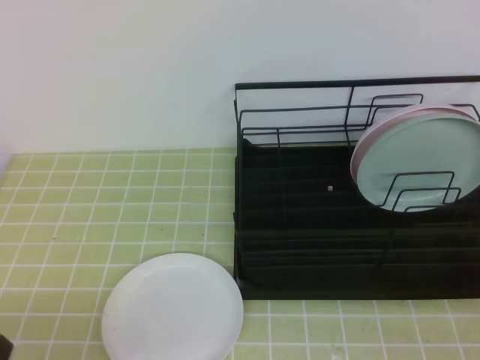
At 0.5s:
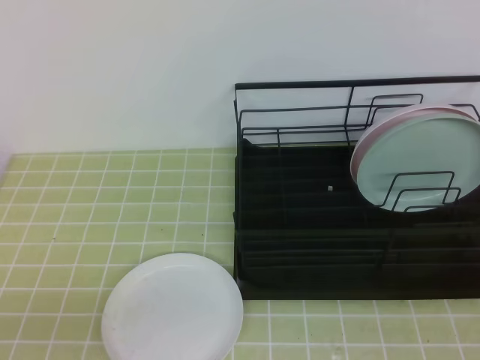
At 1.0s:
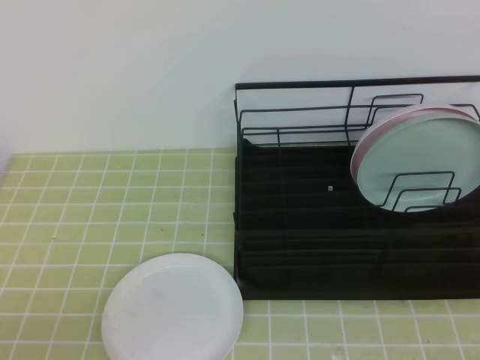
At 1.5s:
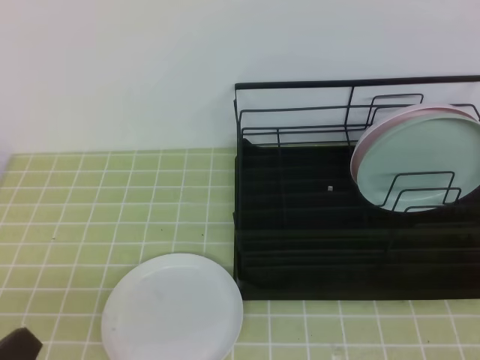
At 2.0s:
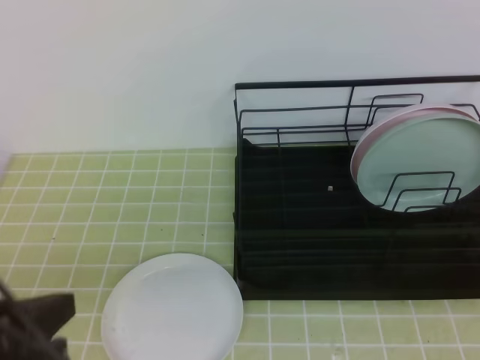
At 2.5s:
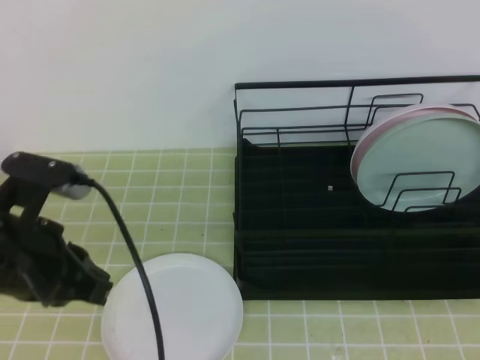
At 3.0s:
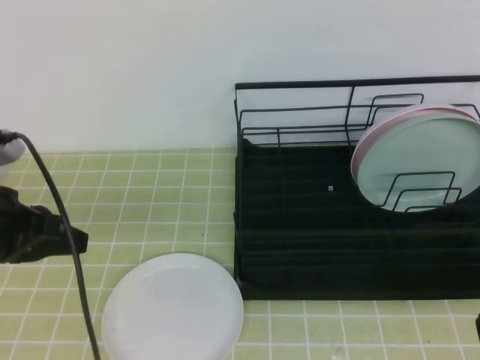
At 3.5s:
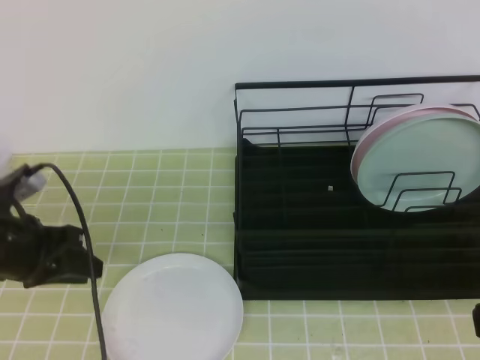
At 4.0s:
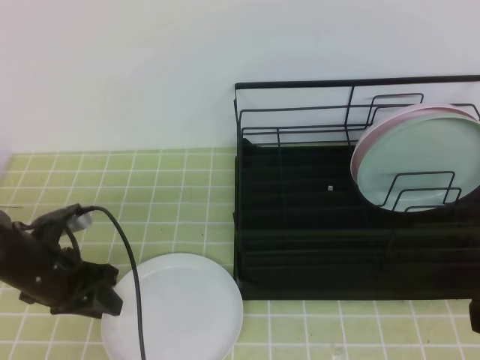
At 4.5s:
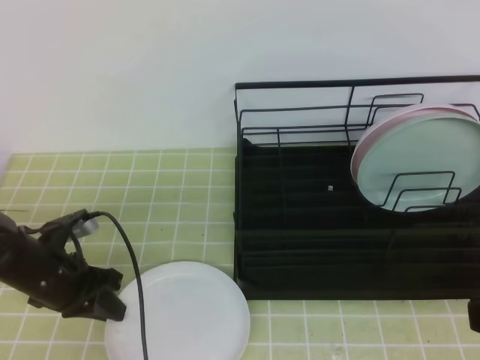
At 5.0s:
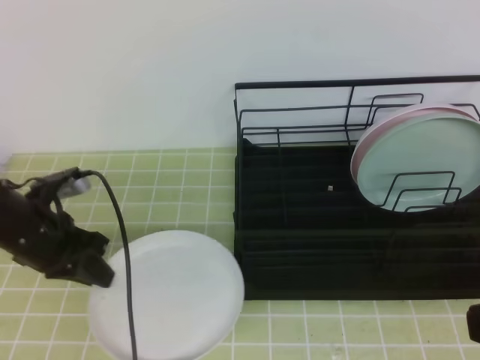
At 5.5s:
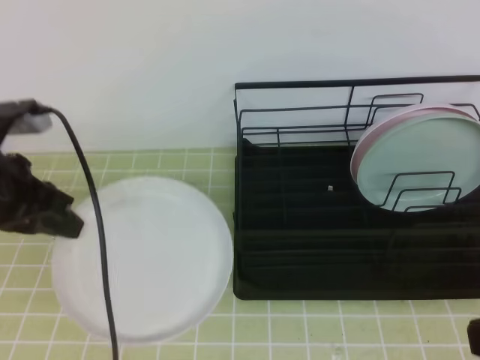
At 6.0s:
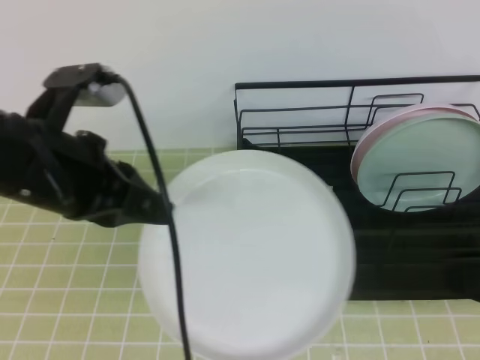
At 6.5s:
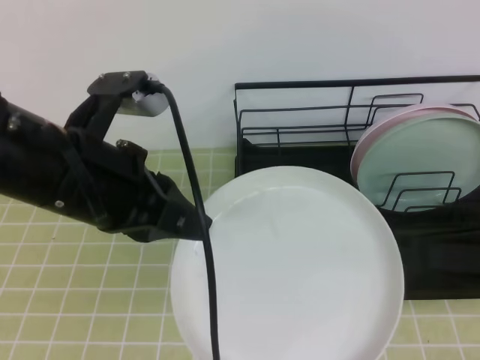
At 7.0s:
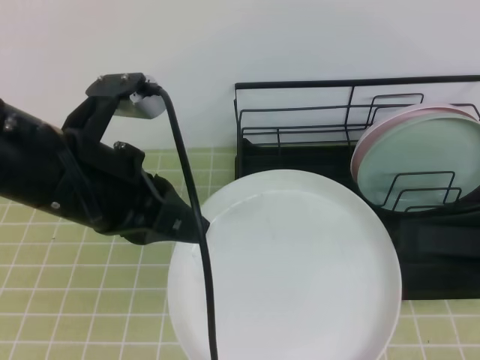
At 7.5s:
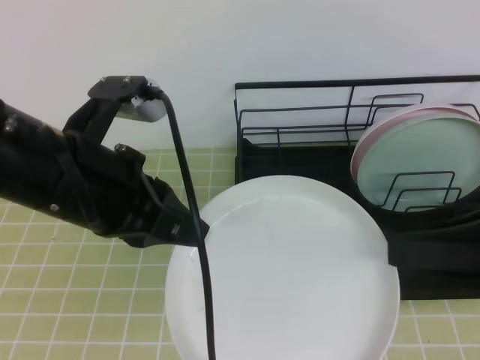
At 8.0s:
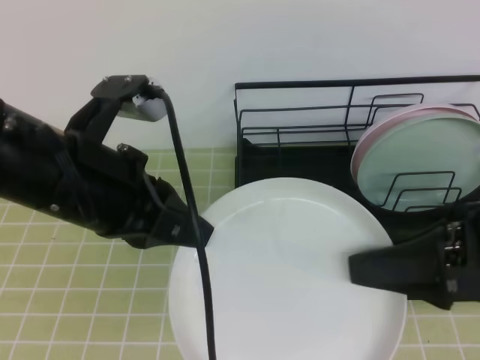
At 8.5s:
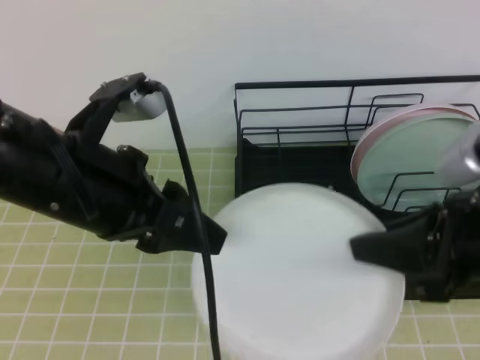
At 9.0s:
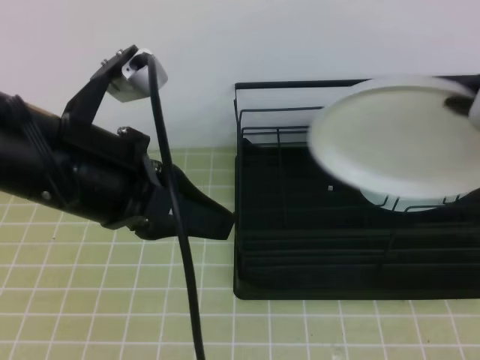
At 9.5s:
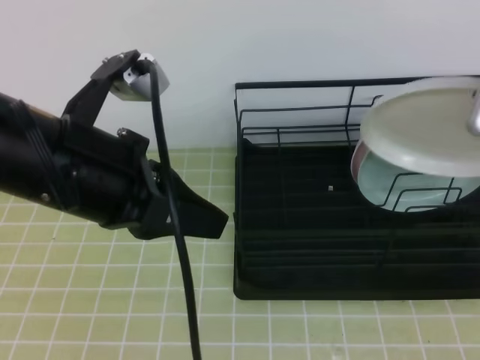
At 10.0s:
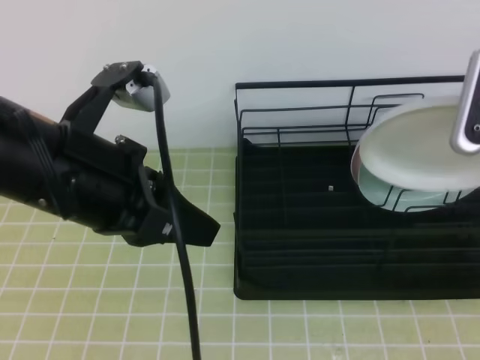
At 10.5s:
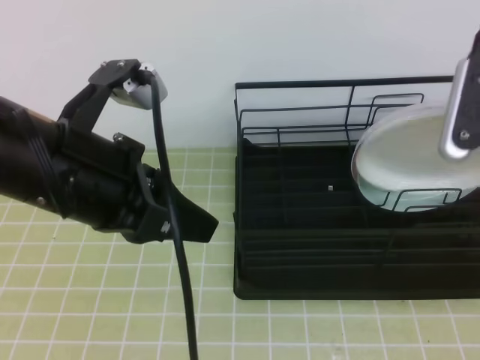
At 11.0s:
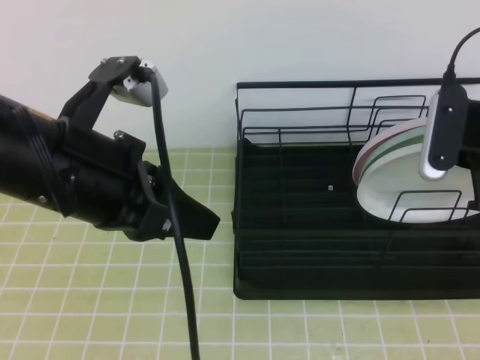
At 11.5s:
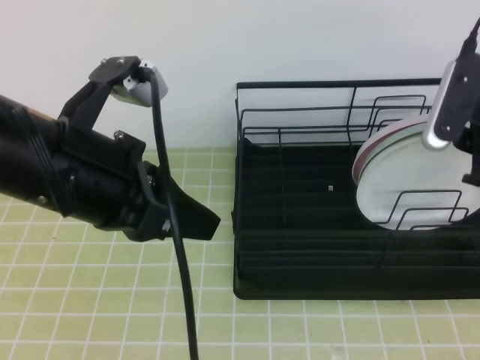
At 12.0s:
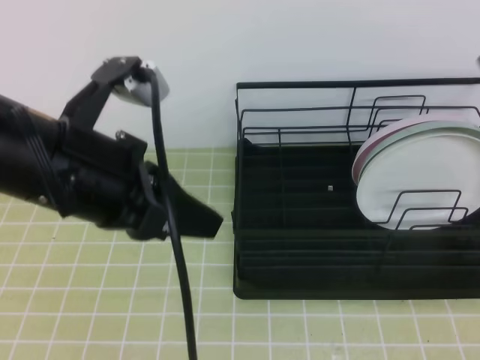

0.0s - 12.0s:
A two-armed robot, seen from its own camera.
0.0s - 2.0s: The left gripper is displaced upward and forward by roughly 10 cm; the right gripper moves upward and to the left, some 15 cm.
2.0s - 4.0s: The left gripper shifts some 25 cm forward and downward, and opens its fingers.
4.0s - 6.0s: The left gripper moves upward and to the right, about 20 cm, and closes up, while the right gripper opens up.
6.0s - 8.0s: The right gripper heads forward, covering some 5 cm.
8.0s - 10.0s: The left gripper opens, then closes once more. Meanwhile the right gripper goes roughly 10 cm forward, and closes its fingers.
10.0s - 12.0s: The right gripper opens, then closes again.

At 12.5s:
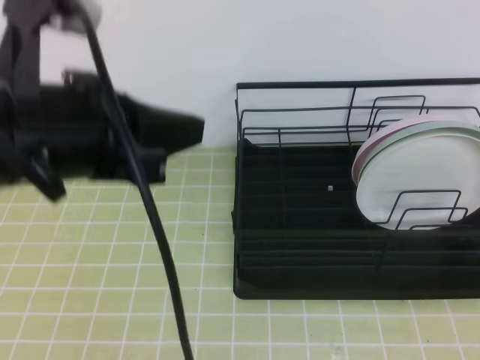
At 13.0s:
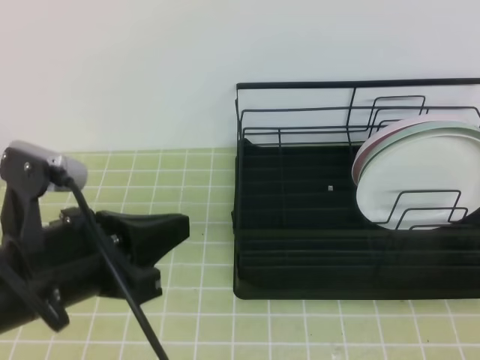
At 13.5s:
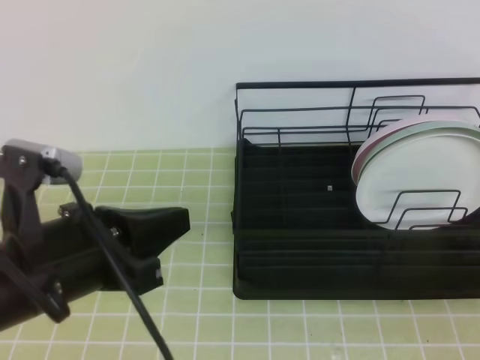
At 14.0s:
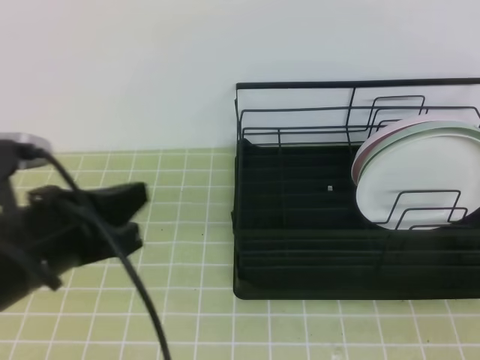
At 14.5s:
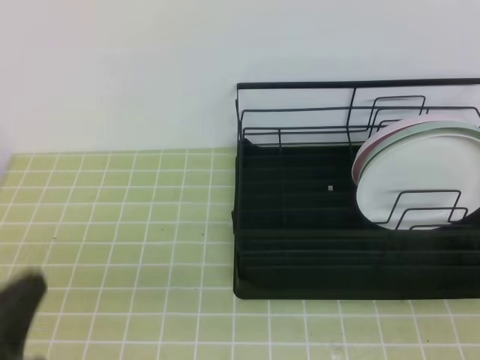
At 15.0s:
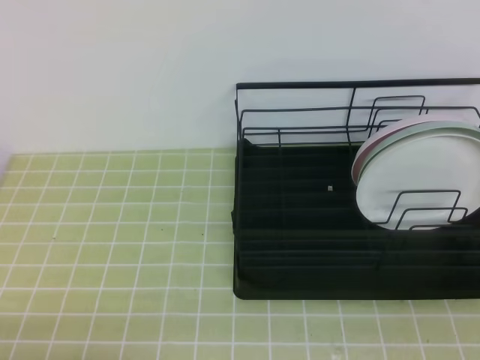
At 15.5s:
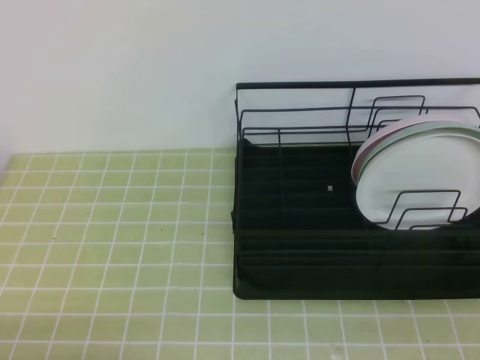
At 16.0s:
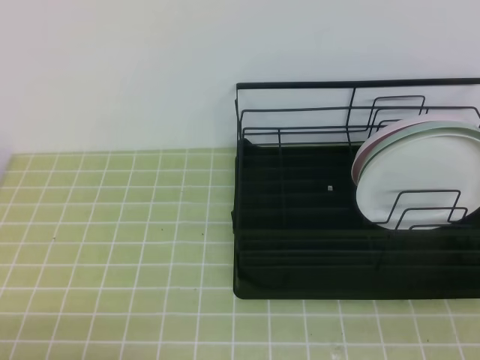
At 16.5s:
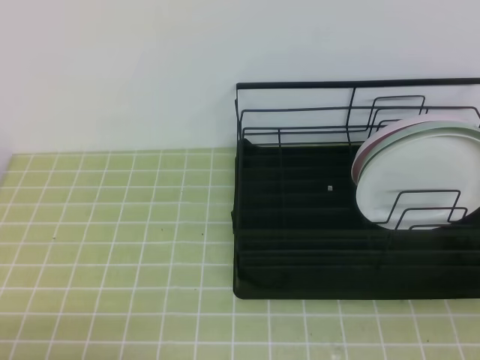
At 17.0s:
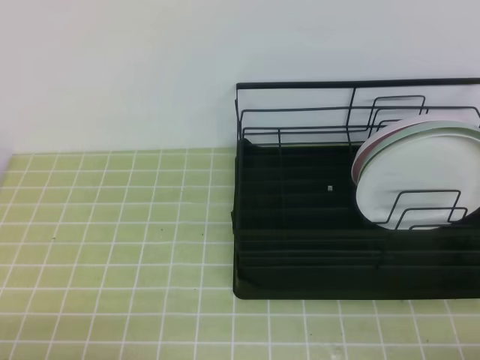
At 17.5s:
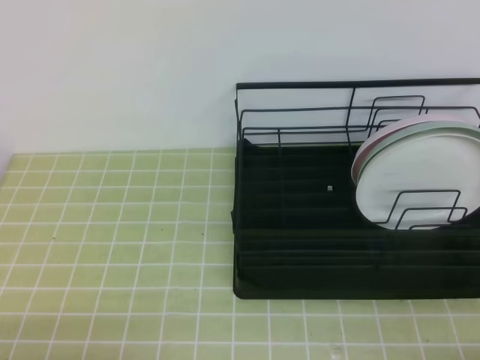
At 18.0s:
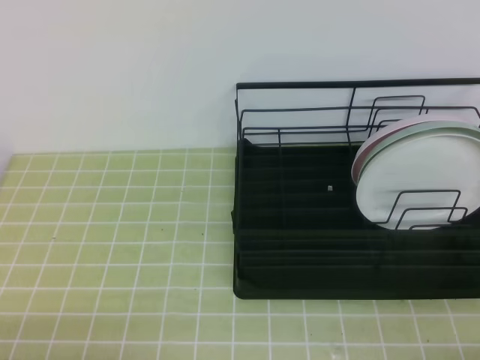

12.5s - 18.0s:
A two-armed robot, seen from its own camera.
12.5s - 14.5s: The left gripper travels downward, backward and to the left by roughly 20 cm, while the right gripper is displaced downward and backward by about 15 cm.
14.5s - 16.0s: The left gripper travels downward by approximately 10 cm.
